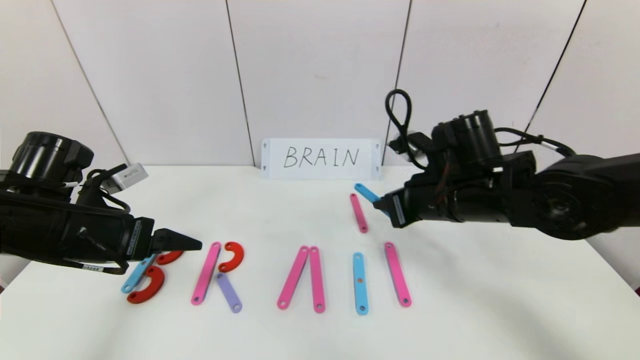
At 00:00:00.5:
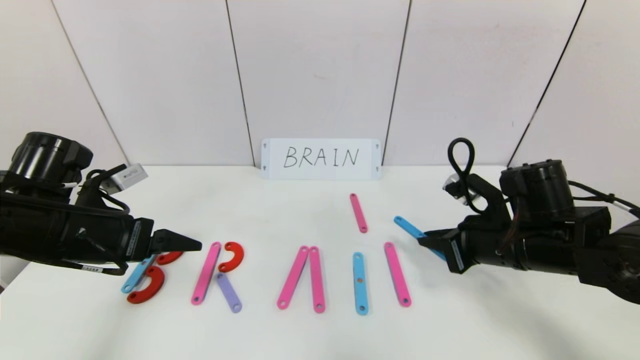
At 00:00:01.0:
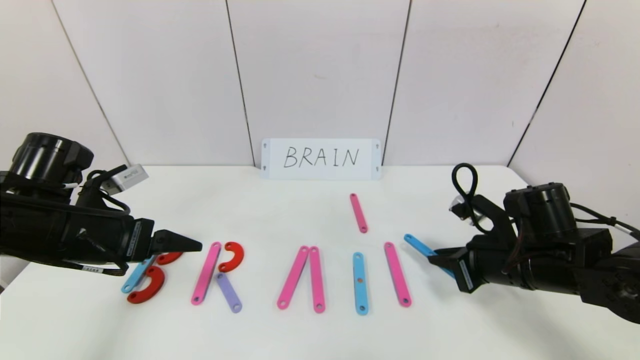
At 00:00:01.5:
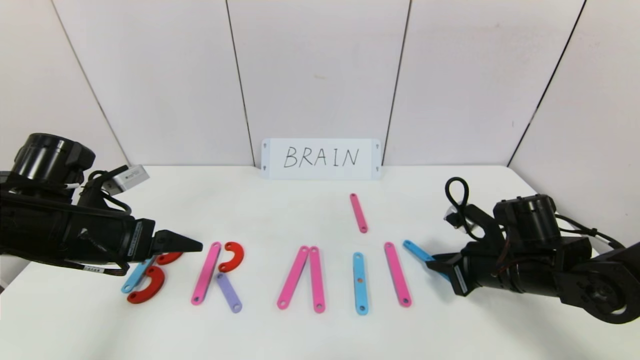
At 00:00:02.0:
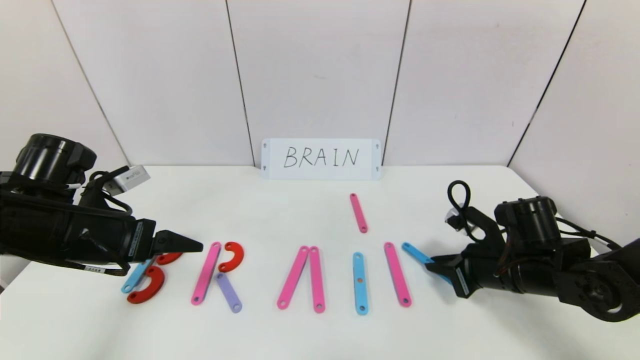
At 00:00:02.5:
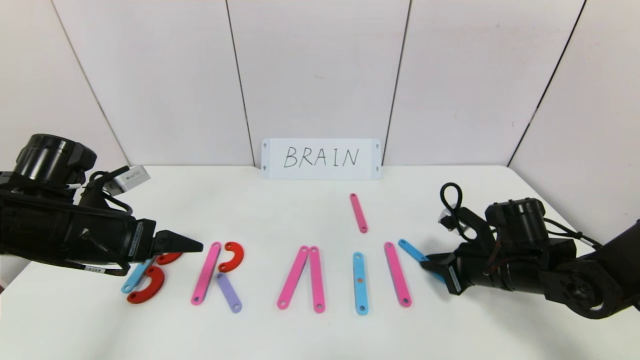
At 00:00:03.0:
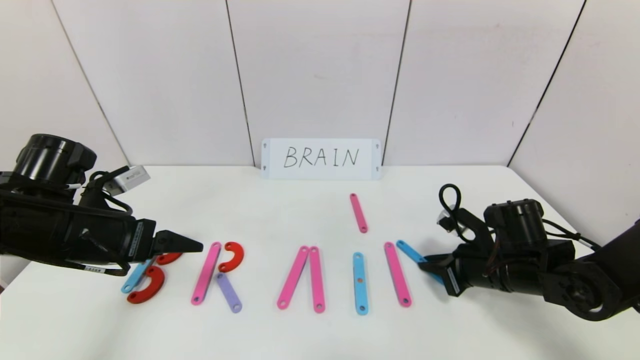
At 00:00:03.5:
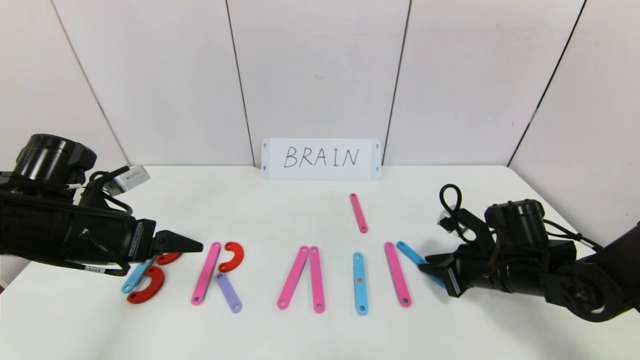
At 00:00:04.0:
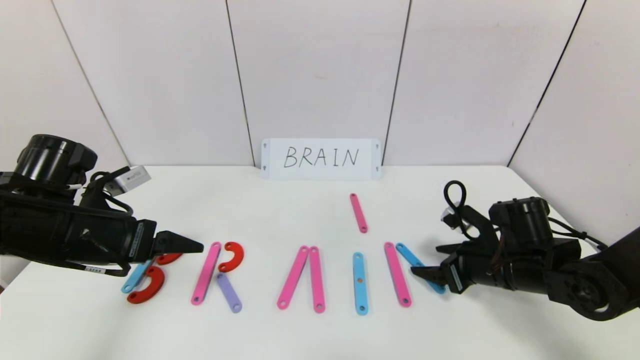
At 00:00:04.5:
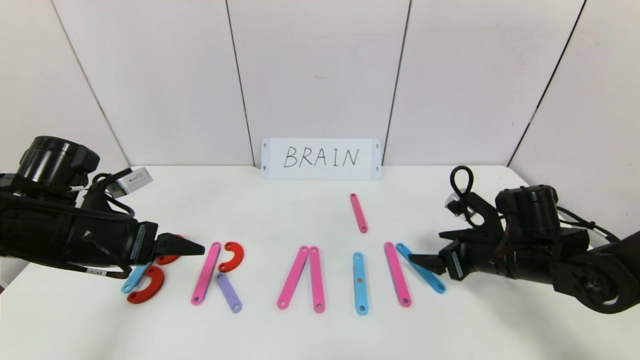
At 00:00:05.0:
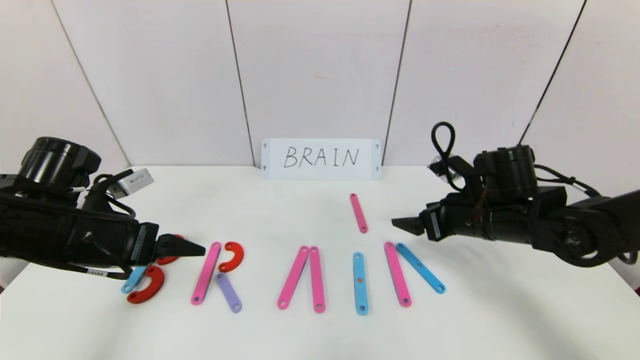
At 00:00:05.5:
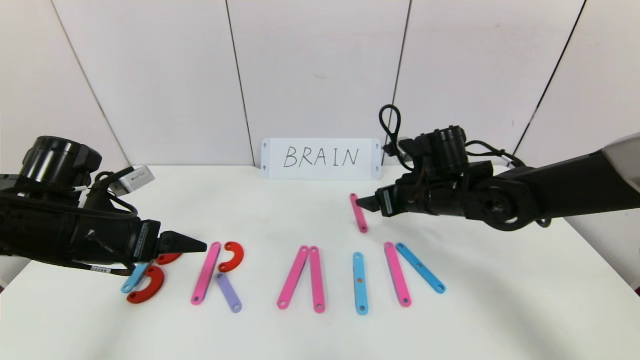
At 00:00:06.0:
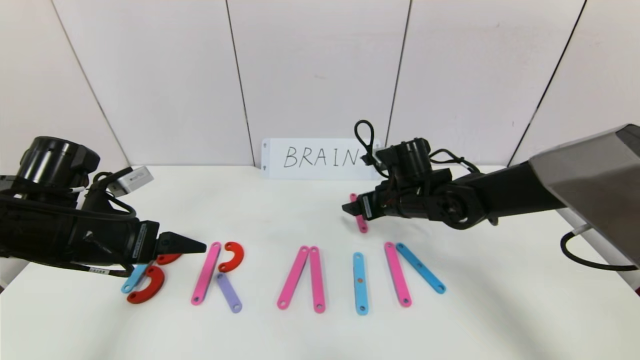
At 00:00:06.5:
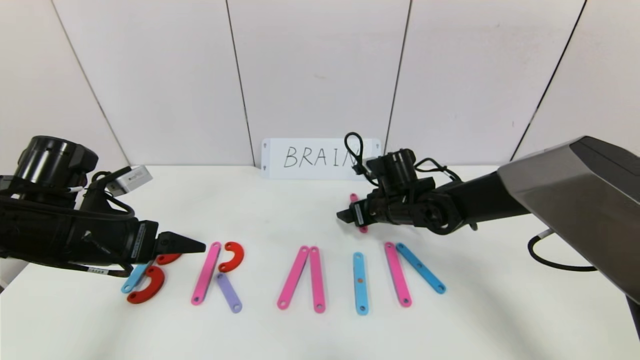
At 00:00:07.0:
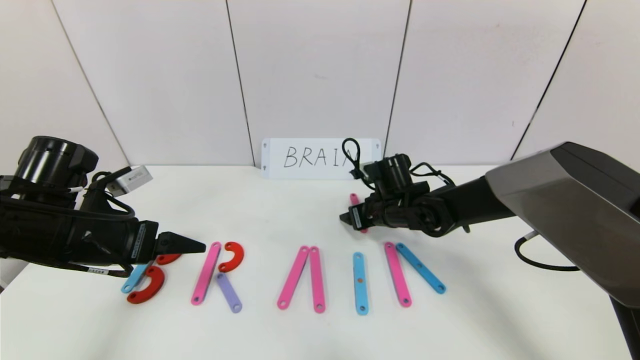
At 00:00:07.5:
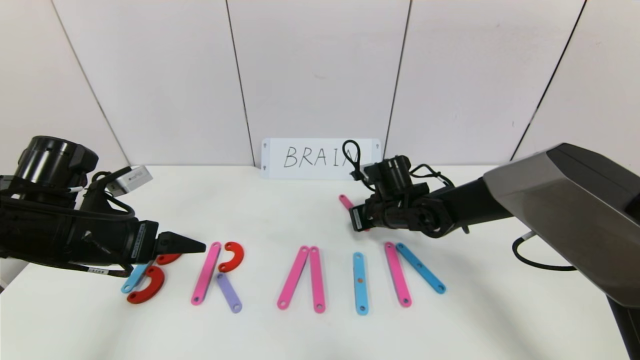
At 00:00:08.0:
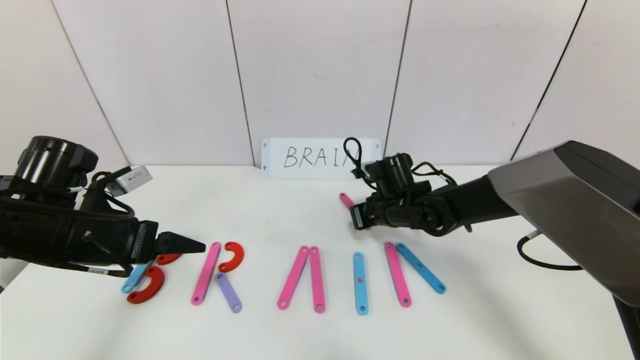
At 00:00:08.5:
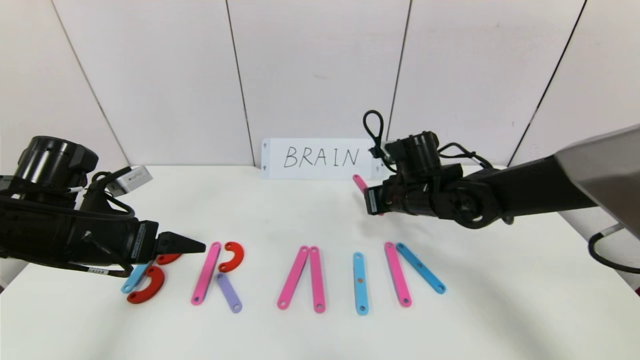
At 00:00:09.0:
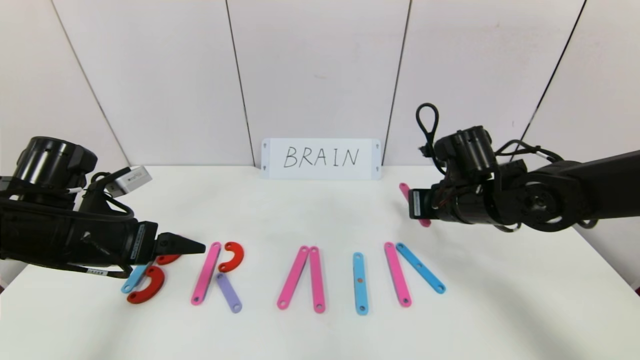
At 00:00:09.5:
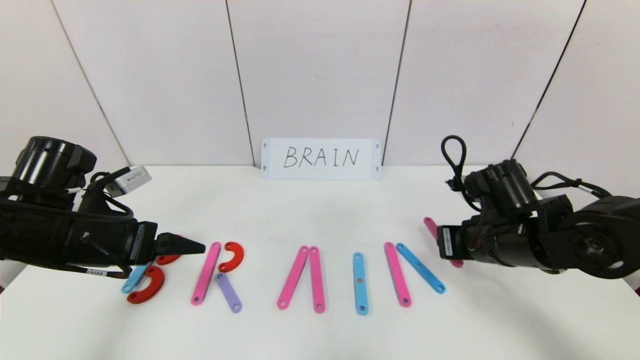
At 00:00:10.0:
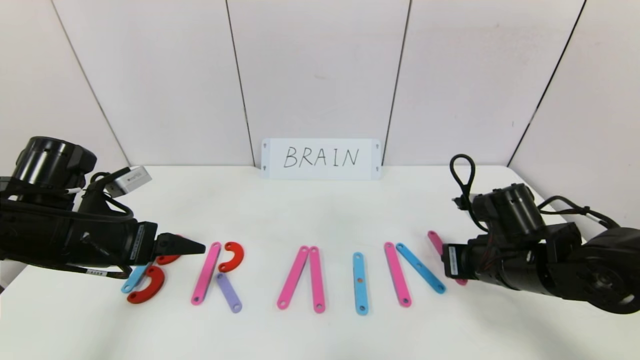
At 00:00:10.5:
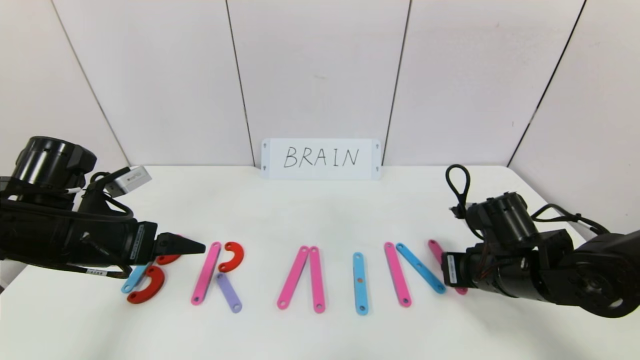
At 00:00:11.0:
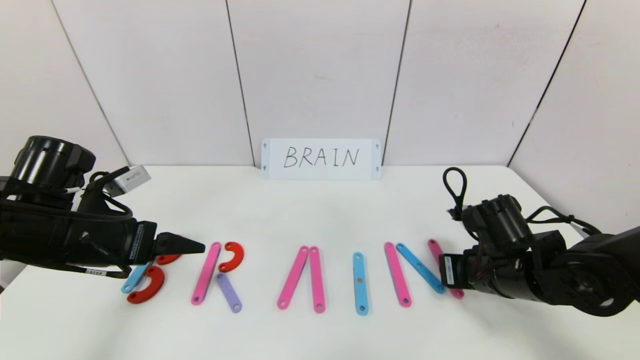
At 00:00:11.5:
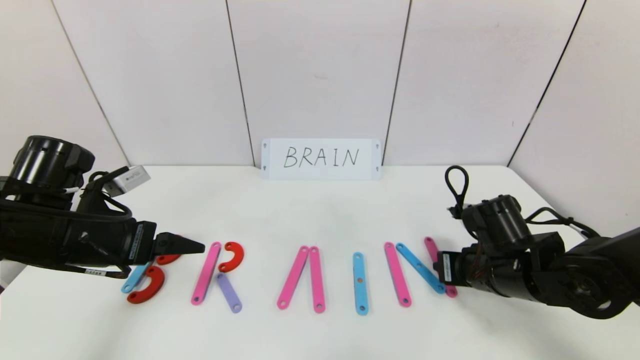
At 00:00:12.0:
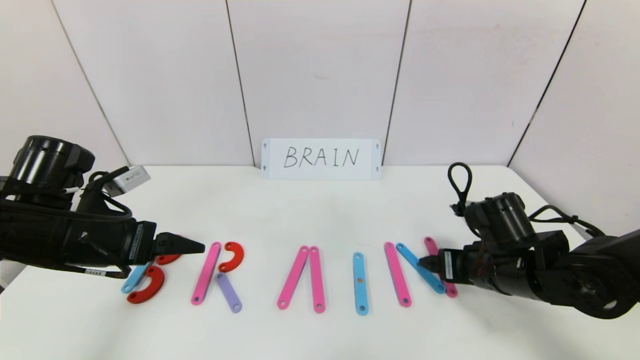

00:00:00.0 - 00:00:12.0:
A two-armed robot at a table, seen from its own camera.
Task of the whole recording: rearrange the word baai as brain.
Step, 00:00:00.0 - 00:00:11.5: Place the character N after character I.
00:00:00.0 - 00:00:02.0: The right gripper heads downward and to the right, covering about 15 cm.
00:00:02.0 - 00:00:04.0: The right gripper opens its fingers.
00:00:04.0 - 00:00:06.0: The right gripper goes roughly 15 cm to the left and forward.
00:00:06.0 - 00:00:08.0: The right gripper closes.
00:00:08.0 - 00:00:10.0: The right gripper is displaced backward and to the right by some 20 cm.
00:00:10.0 - 00:00:12.0: The right gripper opens.

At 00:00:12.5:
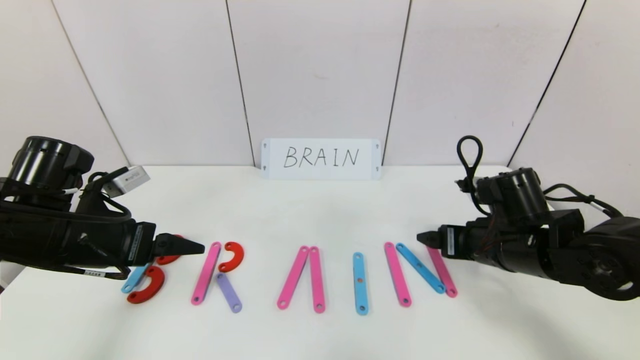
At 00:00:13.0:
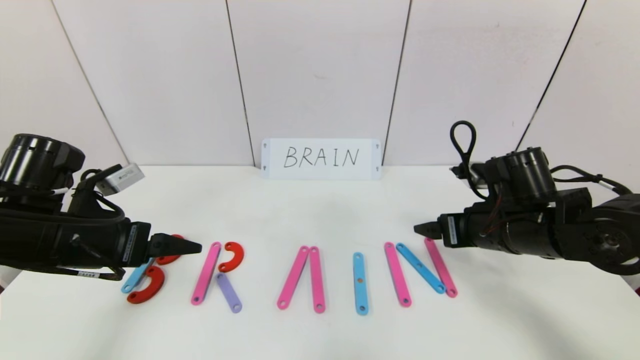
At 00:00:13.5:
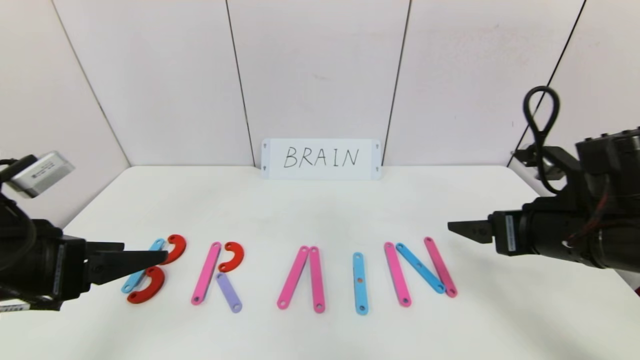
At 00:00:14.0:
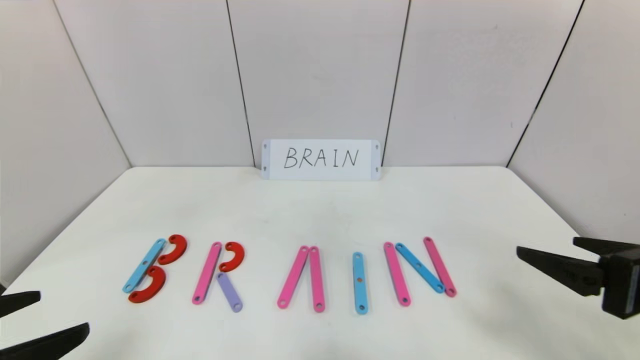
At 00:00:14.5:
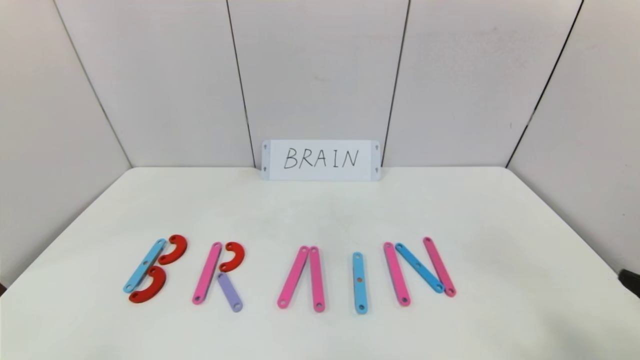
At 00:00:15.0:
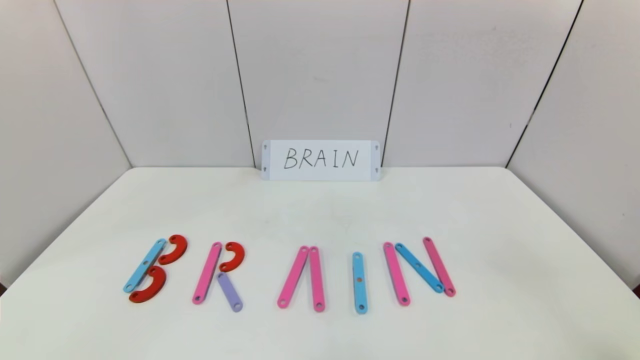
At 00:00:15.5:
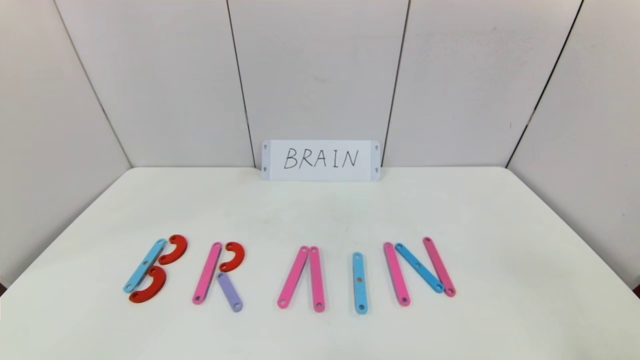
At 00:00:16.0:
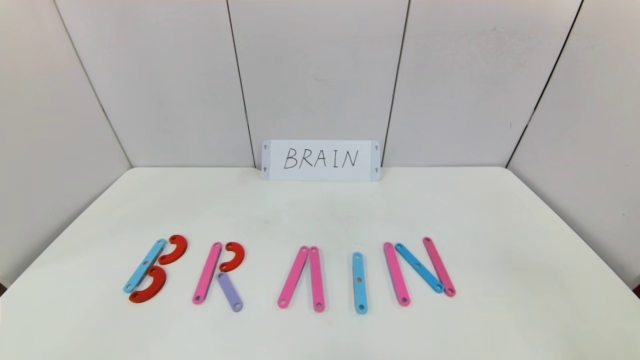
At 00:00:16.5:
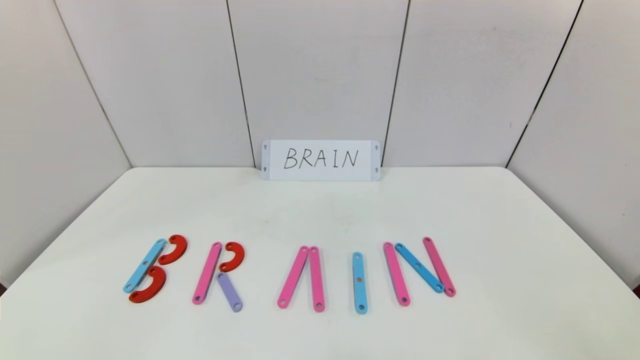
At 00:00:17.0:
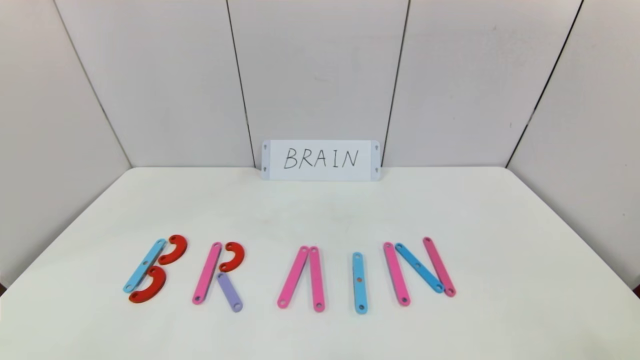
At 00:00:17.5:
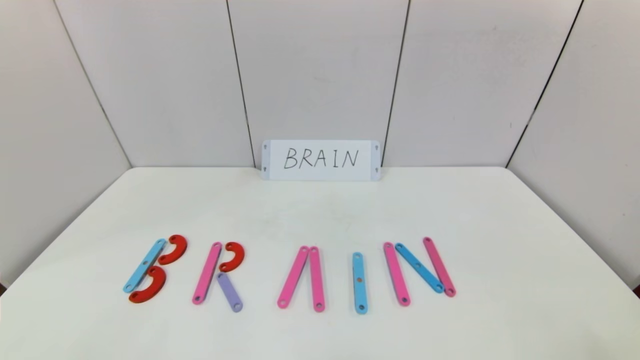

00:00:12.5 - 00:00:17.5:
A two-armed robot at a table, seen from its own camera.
Task of the whole recording: rearrange the word baai as brain.
00:00:12.5 - 00:00:15.0: The two grippers go about 30 cm backward.

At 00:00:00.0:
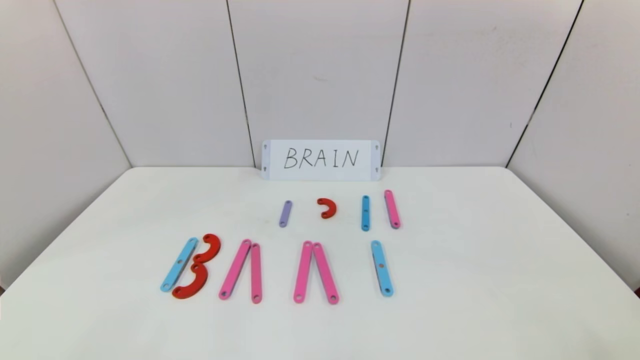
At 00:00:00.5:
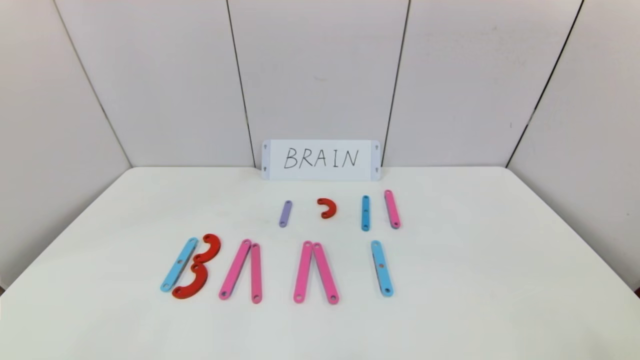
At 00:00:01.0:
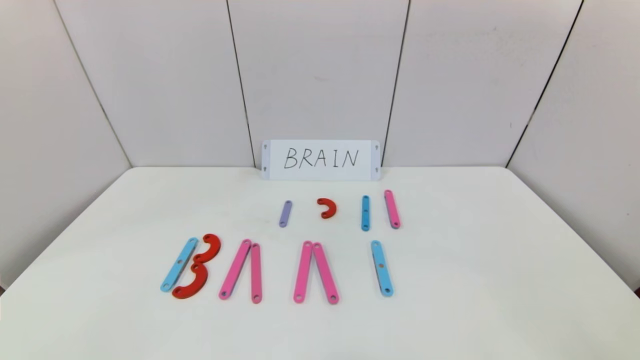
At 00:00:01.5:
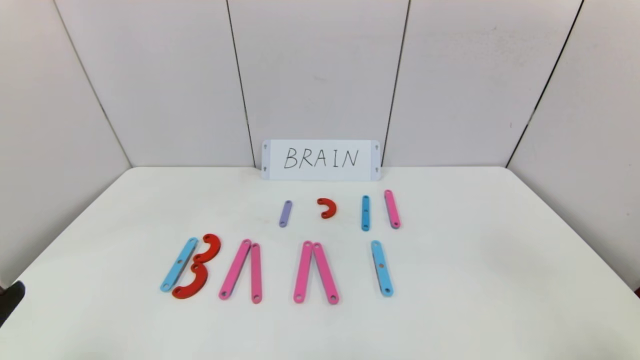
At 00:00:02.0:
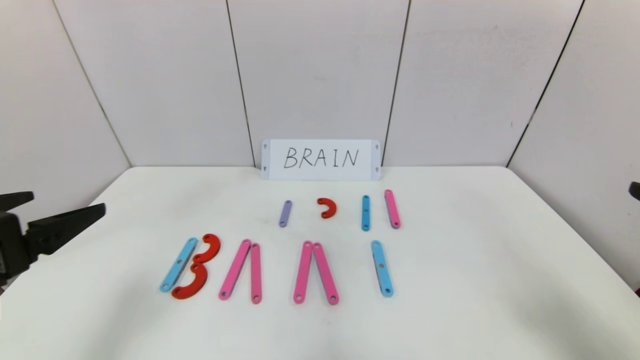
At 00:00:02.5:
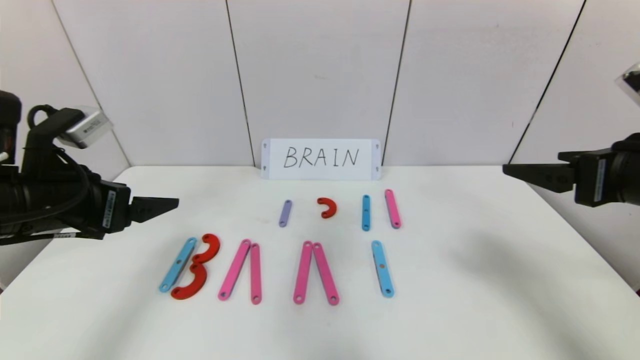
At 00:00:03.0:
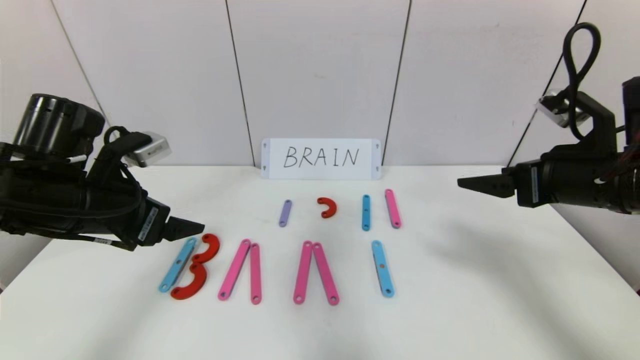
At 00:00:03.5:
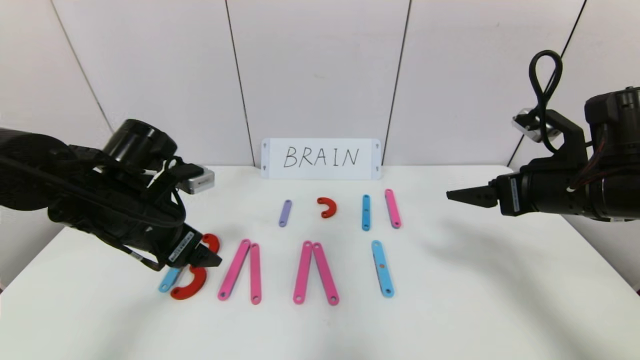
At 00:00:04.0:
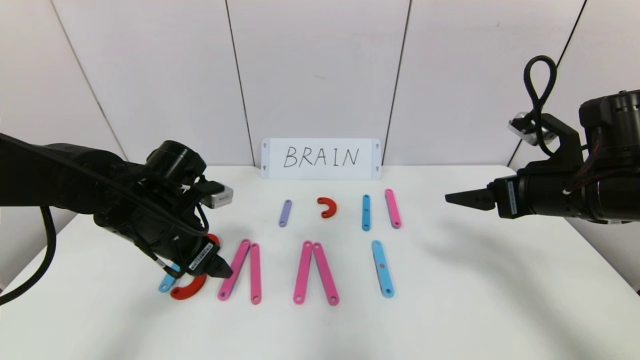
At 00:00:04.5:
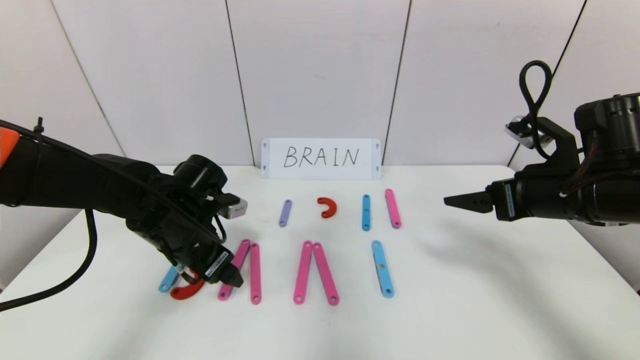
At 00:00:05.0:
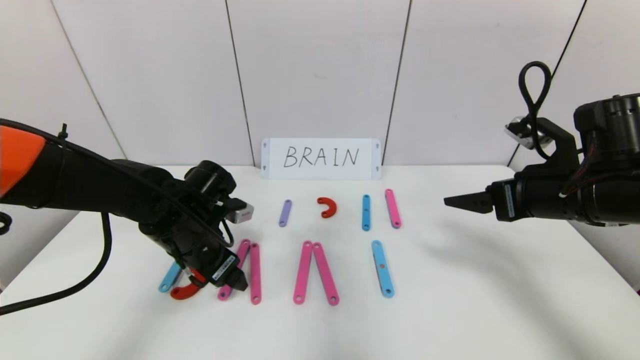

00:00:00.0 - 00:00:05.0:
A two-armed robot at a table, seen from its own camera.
Task of the whole recording: rearrange the word baai as brain.
00:00:00.0 - 00:00:02.5: Both grippers move forward and upward, roughly 30 cm.
00:00:02.5 - 00:00:05.0: The left gripper moves downward, to the right and forward, some 20 cm, while the right gripper shifts approximately 10 cm forward and downward.
